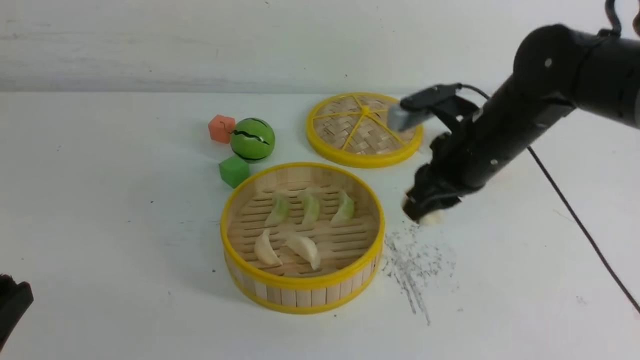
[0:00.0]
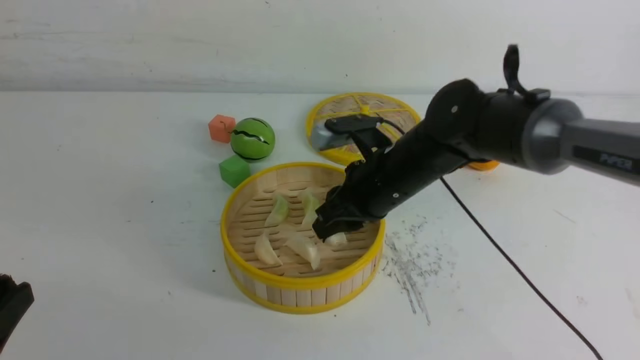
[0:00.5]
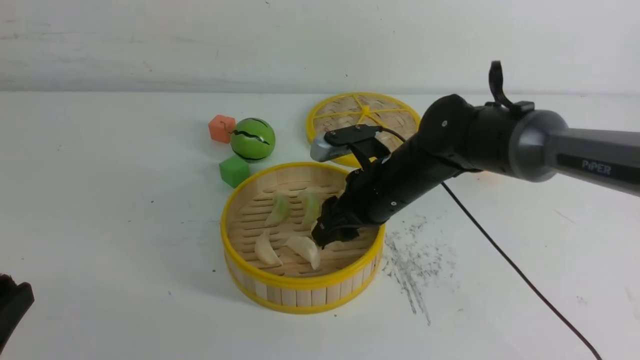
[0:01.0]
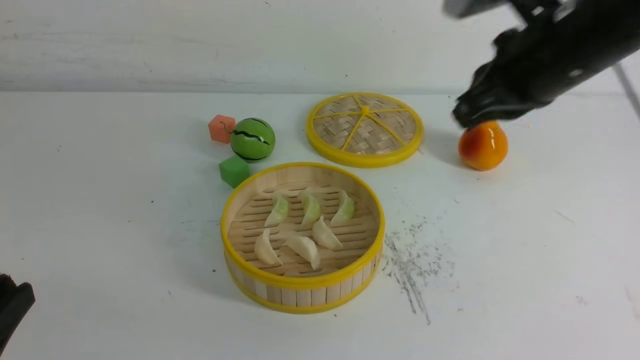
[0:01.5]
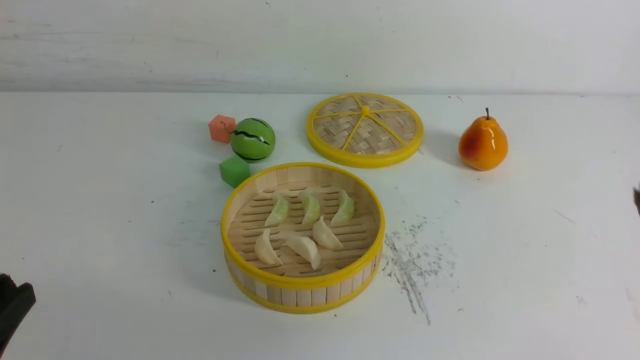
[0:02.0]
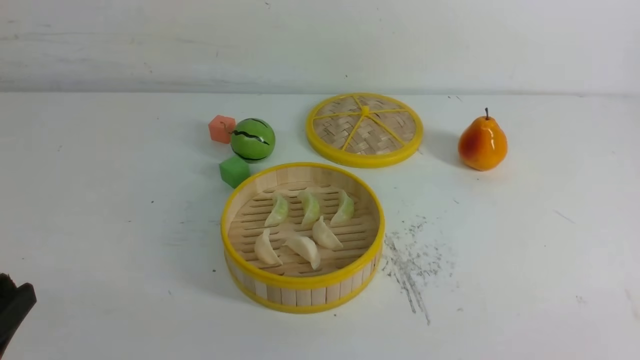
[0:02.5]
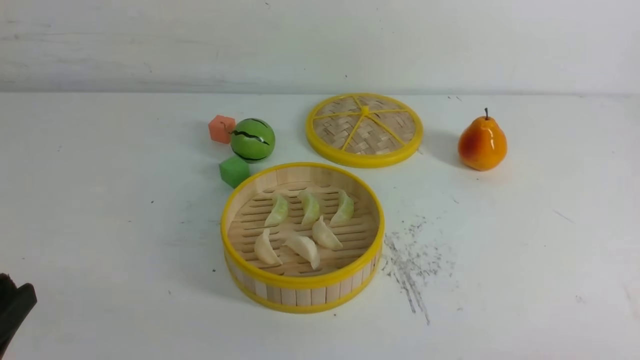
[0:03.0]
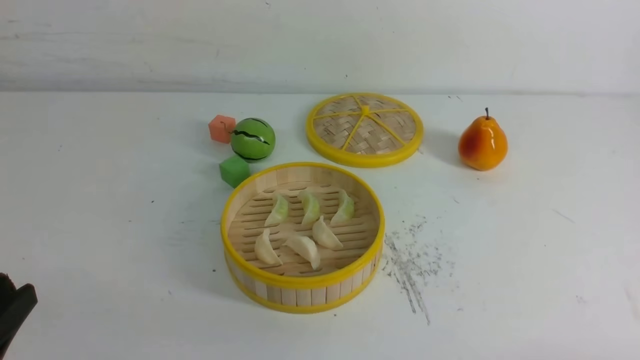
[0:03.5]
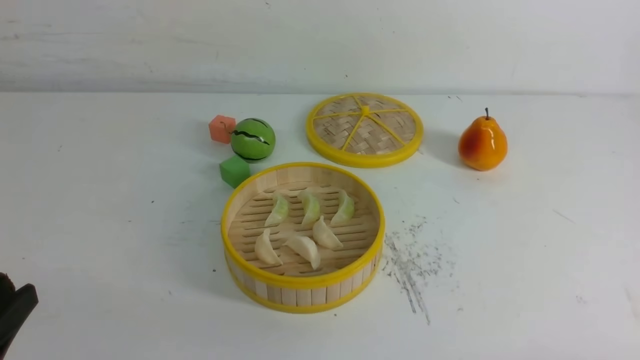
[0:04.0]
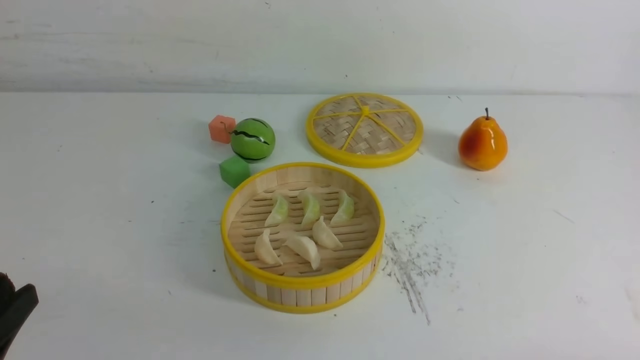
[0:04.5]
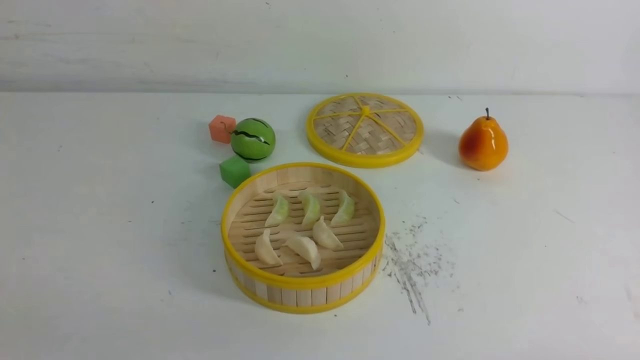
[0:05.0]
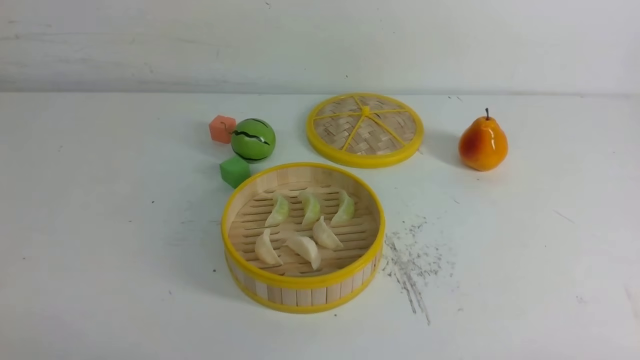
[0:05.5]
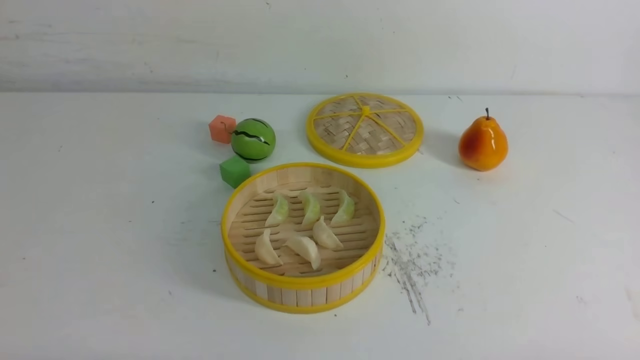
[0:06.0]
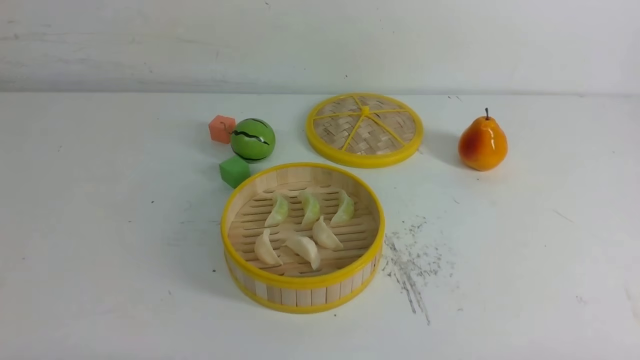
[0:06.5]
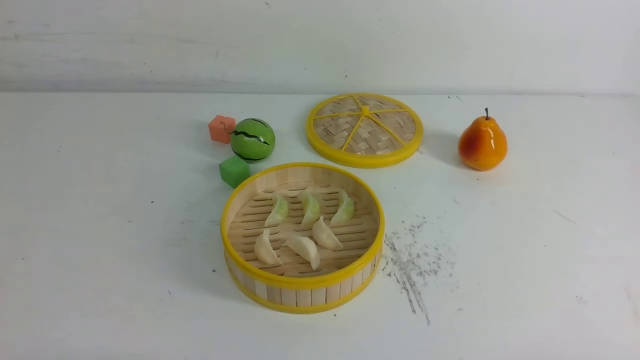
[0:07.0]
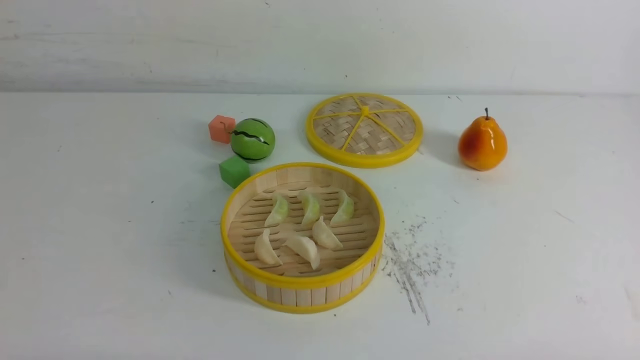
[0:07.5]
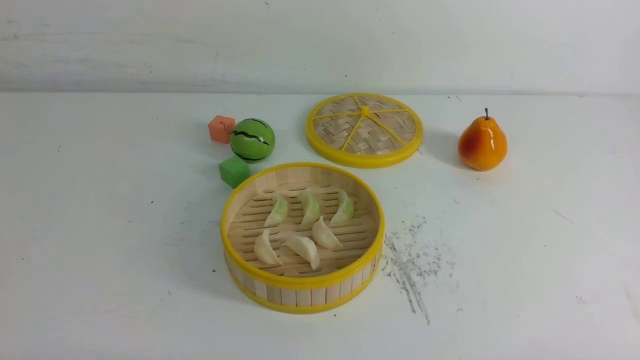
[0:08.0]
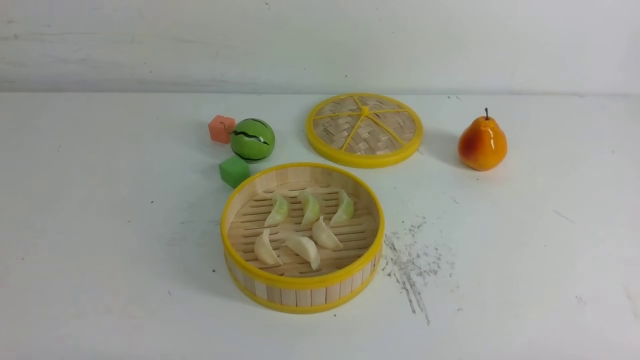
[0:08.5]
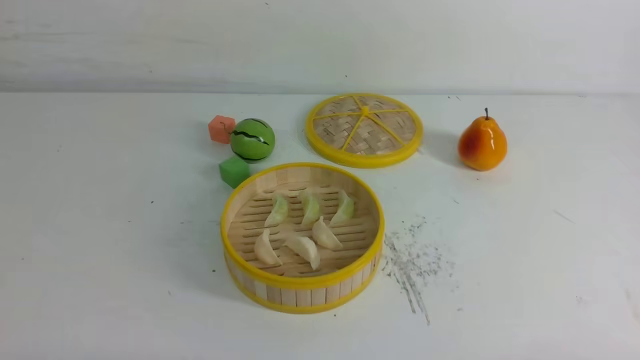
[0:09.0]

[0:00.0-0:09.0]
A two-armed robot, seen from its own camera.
Task of the whole recording: put the dumplings into the steamer on the white table.
Step, 0:00.0 to 0:01.0: use the right arm to put the dumpling into the steamer.
0:00.0 to 0:02.0: The right gripper travels backward, to the right and upward by approximately 30 cm, and closes.
0:04.5 to 0:07.0: The left gripper heads downward, covering approximately 10 cm, and closes up.
0:07.0 to 0:09.0: Both grippers stay about where they are.
